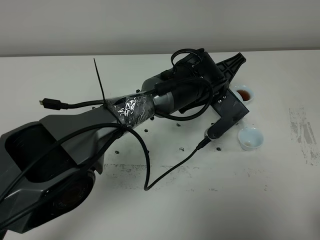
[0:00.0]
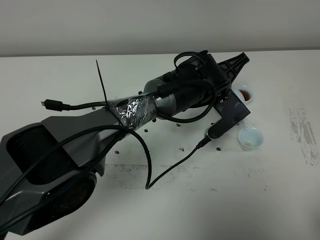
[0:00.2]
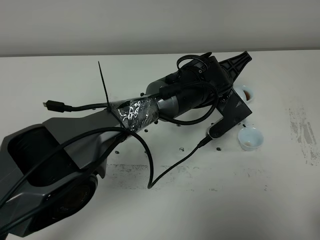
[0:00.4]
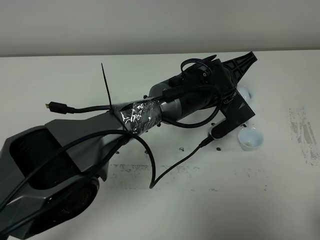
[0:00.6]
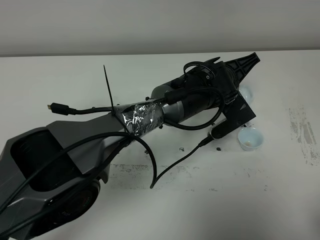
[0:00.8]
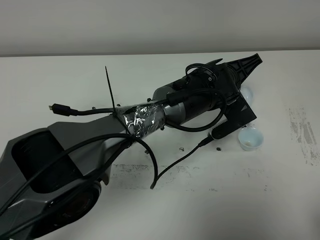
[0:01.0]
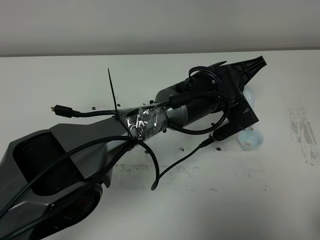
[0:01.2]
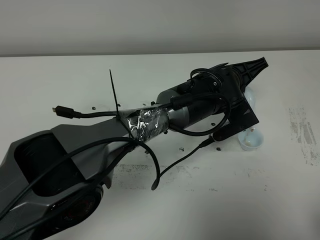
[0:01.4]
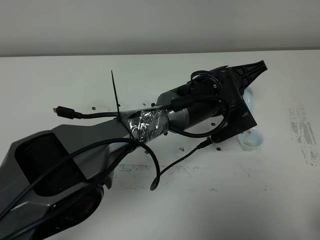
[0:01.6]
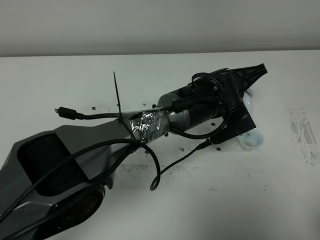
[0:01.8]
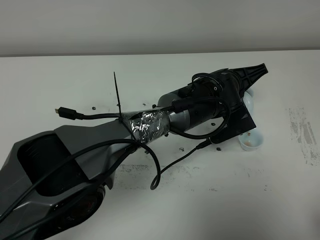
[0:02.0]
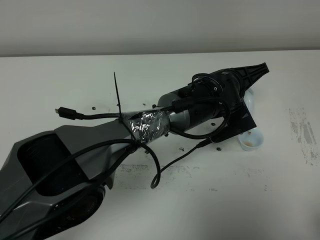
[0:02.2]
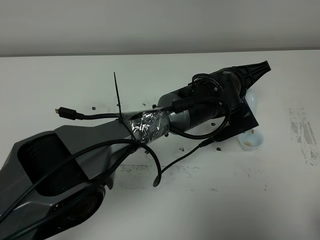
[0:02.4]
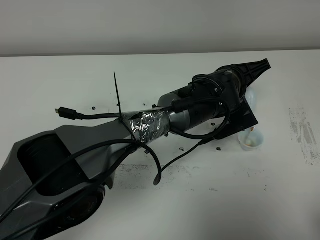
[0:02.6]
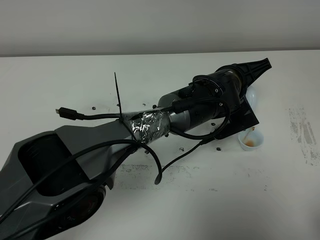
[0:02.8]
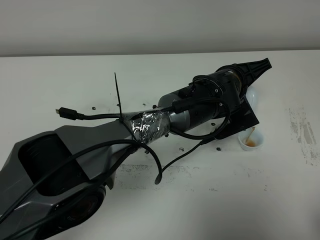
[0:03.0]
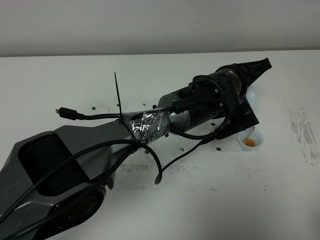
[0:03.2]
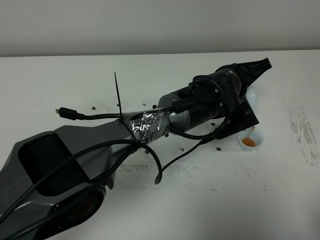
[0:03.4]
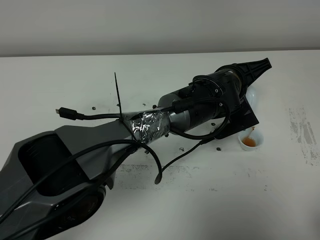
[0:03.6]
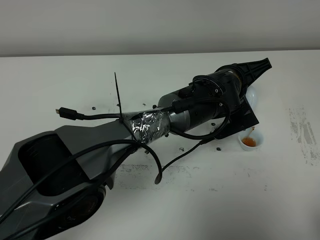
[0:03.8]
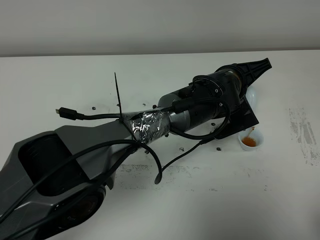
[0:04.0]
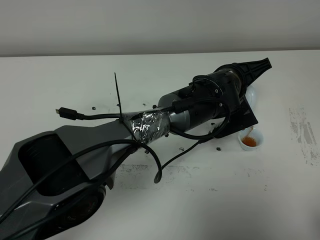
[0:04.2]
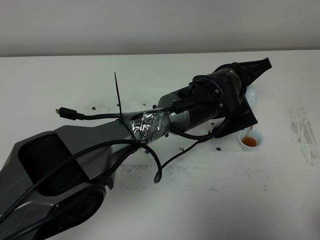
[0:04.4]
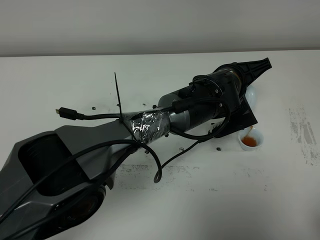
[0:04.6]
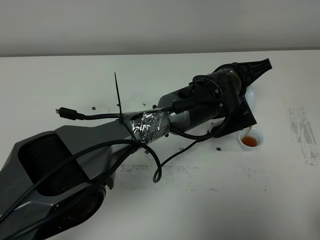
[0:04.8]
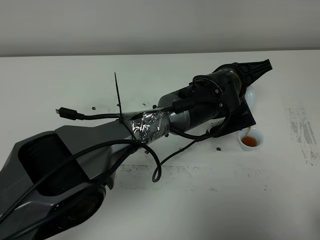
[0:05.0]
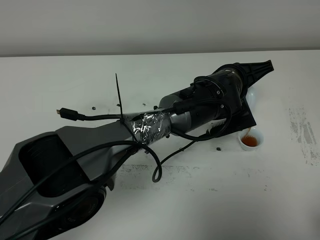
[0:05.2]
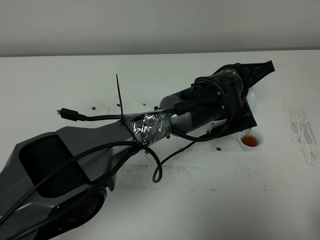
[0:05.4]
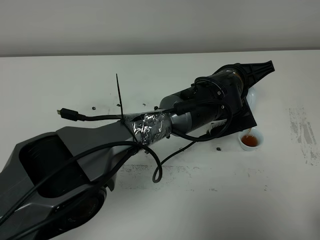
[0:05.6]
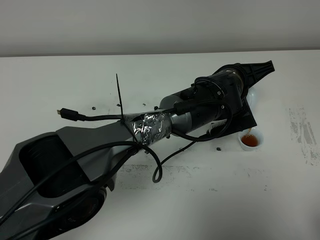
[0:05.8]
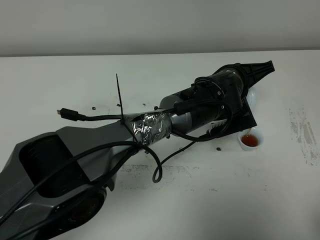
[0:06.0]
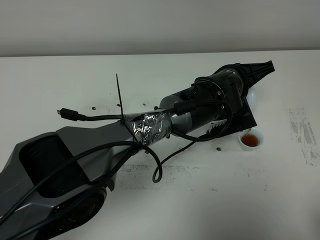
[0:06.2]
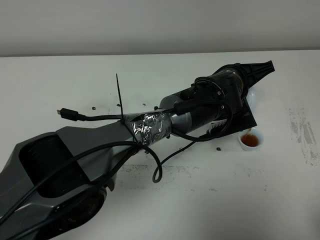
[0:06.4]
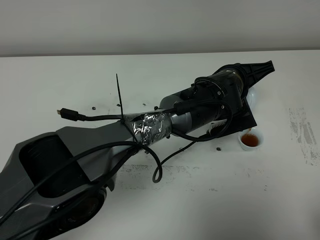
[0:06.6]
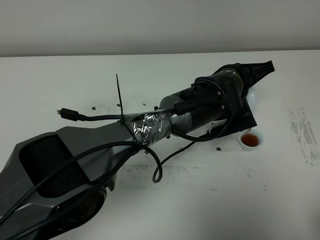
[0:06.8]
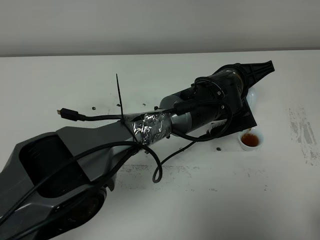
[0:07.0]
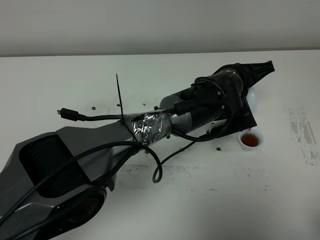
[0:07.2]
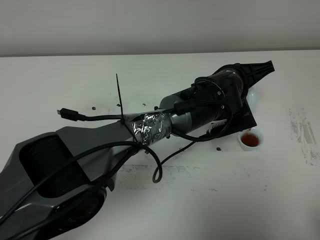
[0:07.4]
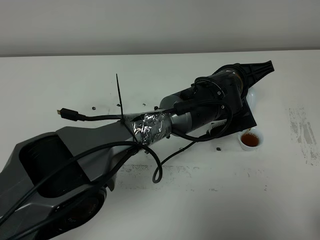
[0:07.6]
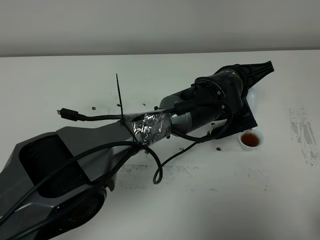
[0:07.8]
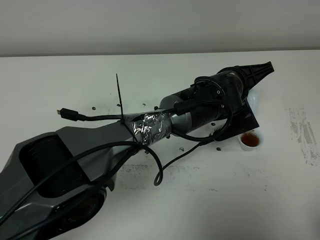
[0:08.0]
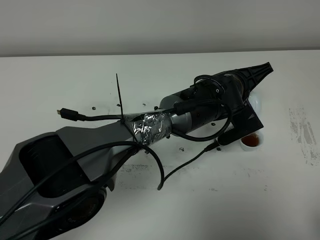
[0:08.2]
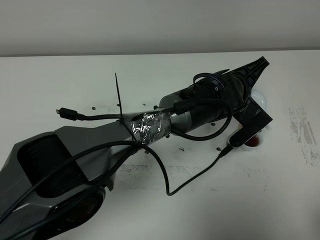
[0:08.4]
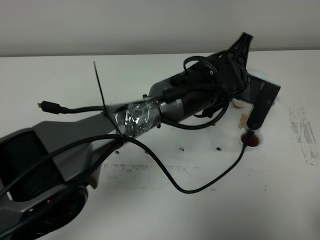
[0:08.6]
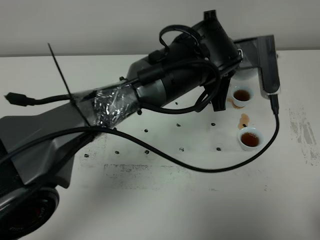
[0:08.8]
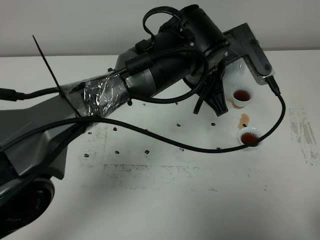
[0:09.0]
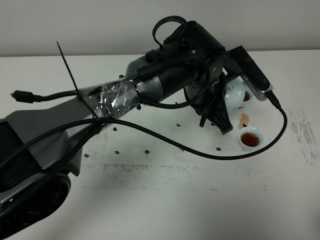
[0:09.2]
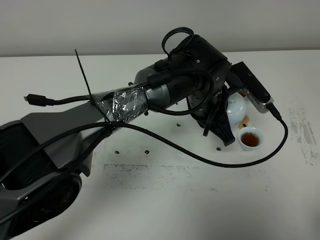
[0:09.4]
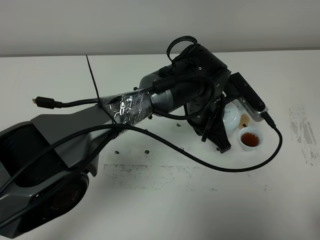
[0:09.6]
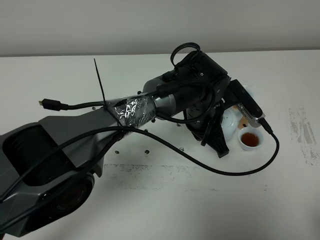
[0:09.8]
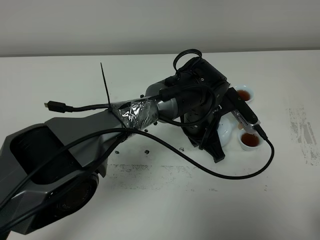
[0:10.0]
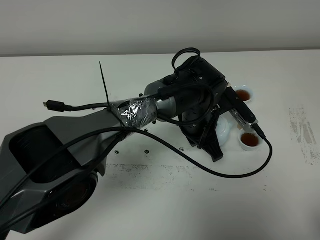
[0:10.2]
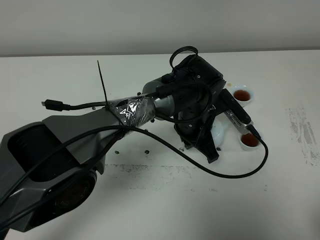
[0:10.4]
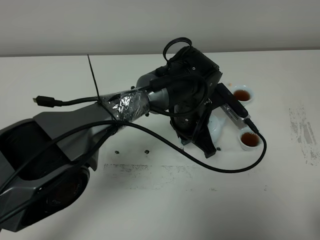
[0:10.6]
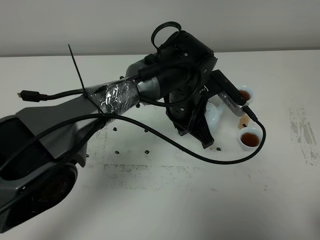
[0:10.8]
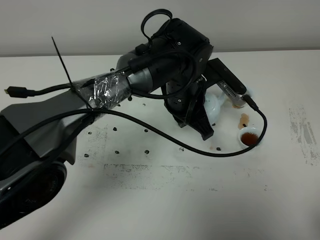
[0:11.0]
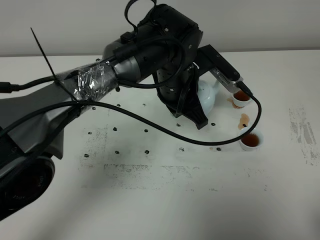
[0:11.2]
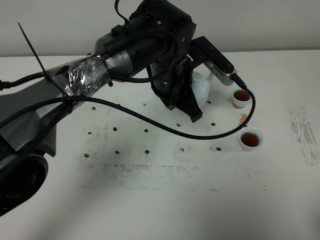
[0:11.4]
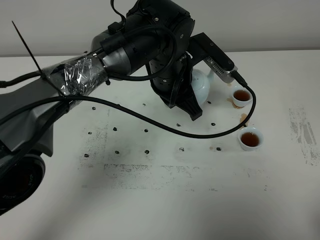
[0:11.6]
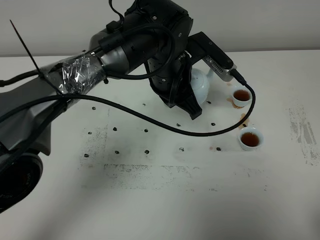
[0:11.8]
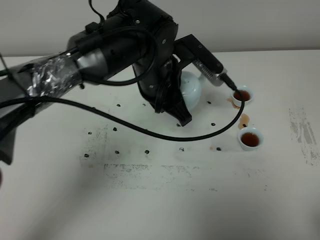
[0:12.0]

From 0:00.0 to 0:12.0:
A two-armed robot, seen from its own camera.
Task of the whole recording: grasp the blue porcelain teapot and pour the tea into the two blue porcelain teacups one by one, put the blue porcelain teapot back in its original place.
Step, from 0:00.0 to 0:08.2: Pour tea into the teacup with the left gripper.
From 0:01.6 to 0:03.0: Both grippers stay put.
From 0:03.0 to 0:04.4: The two grippers keep their place.
From 0:04.4 to 0:07.6: Both grippers stay about where they are.
From 0:07.6 to 0:09.0: The left gripper moves upward and to the left, roughly 10 cm.
From 0:09.0 to 0:10.4: The left gripper moves downward, approximately 10 cm.
From 0:10.4 to 0:12.0: The left gripper goes some 15 cm upward and to the left.

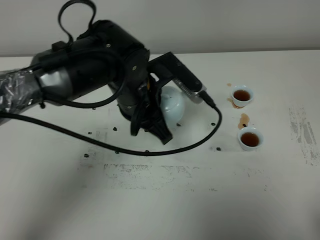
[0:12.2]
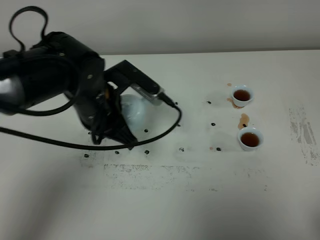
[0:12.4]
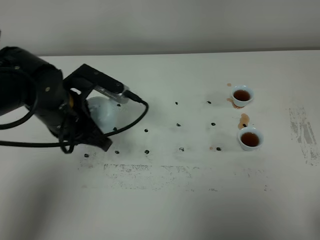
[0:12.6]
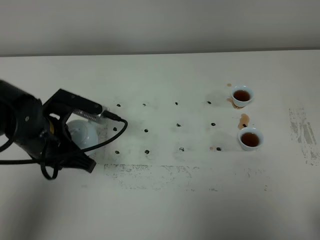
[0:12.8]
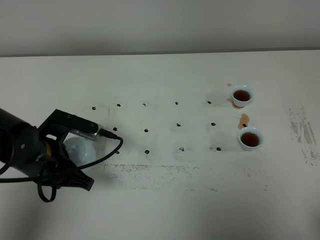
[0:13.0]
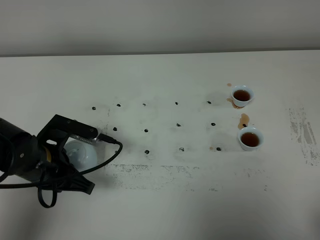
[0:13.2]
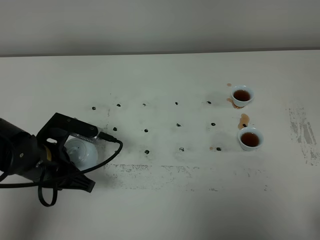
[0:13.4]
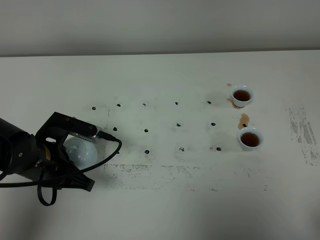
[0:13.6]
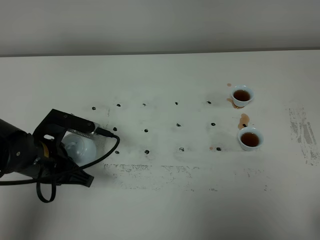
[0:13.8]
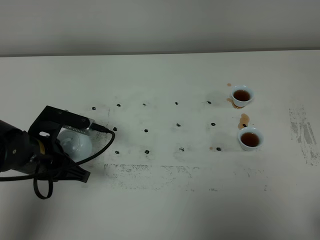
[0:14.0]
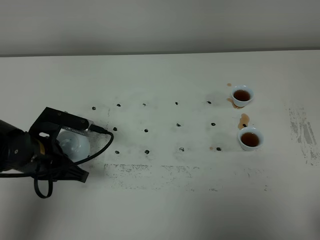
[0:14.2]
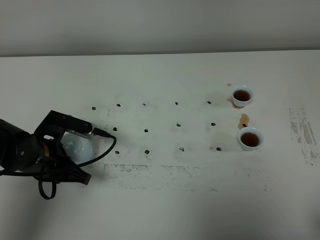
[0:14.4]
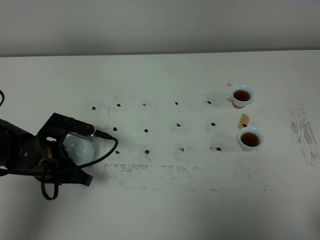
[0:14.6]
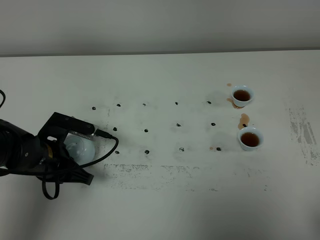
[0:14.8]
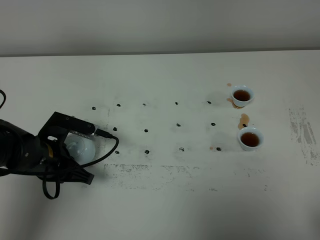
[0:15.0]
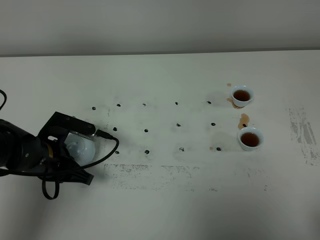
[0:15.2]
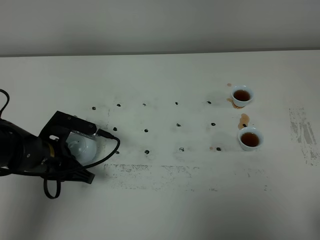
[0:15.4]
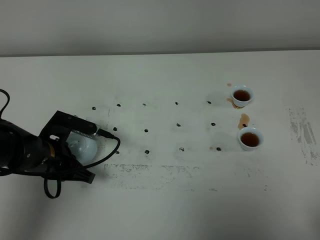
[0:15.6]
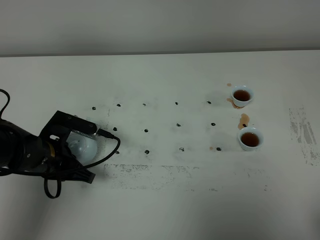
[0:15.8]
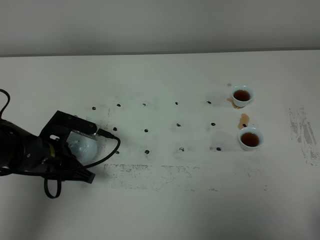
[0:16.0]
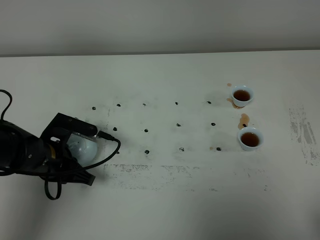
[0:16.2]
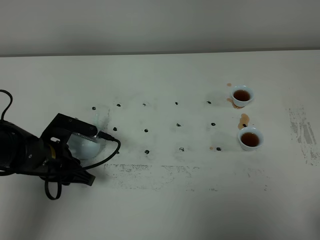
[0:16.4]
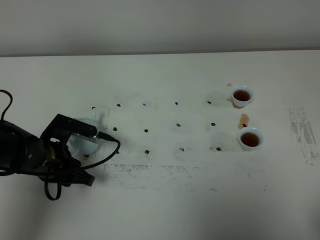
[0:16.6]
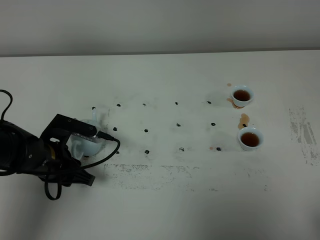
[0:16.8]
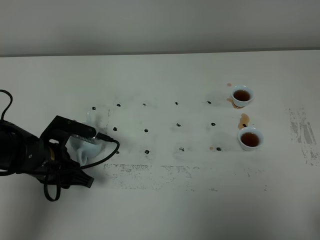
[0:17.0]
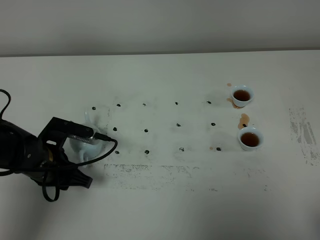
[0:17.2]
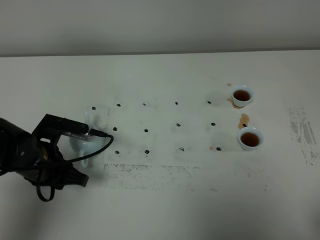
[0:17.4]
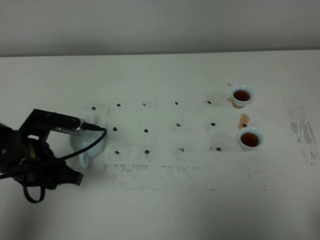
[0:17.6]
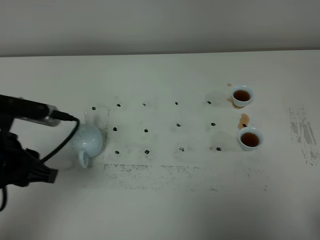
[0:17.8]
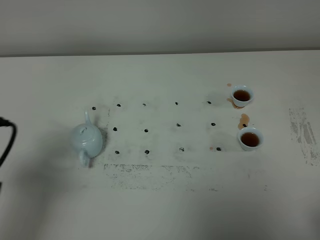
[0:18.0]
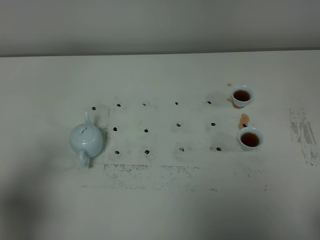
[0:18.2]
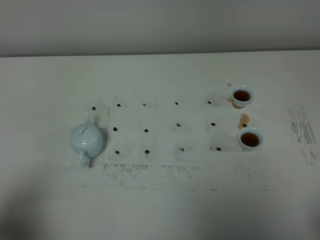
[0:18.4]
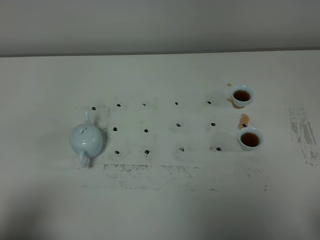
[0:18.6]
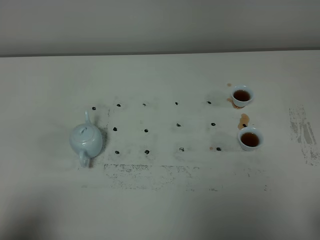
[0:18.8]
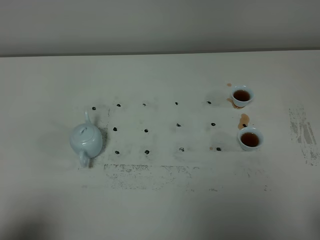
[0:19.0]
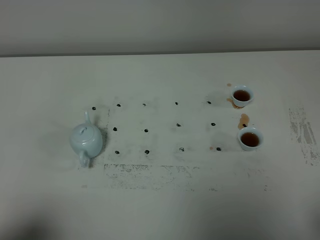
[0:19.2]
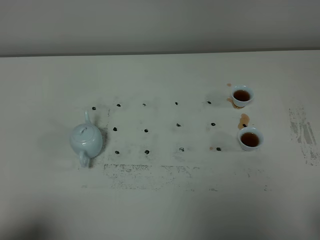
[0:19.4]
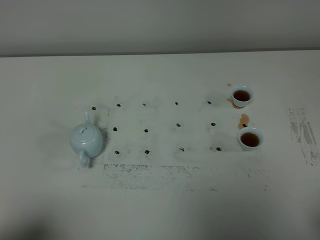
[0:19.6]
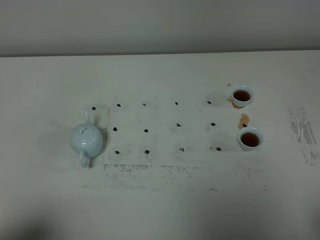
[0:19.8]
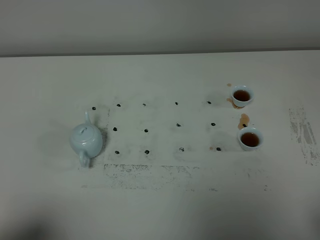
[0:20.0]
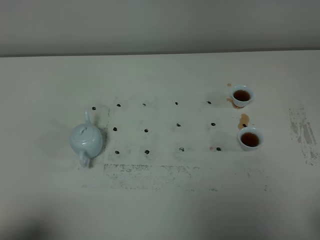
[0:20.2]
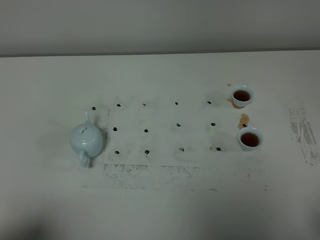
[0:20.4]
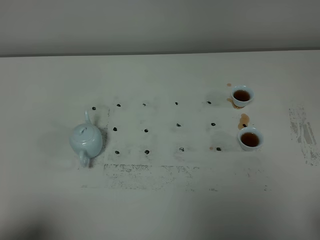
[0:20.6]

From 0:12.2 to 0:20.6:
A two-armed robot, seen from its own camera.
Task of the whole recording: grasp the blue porcelain teapot and pour the tea into the two blue porcelain teacups one by one, put the blue porcelain teapot back in its original place.
From 0:12.2 to 0:13.6: The left gripper moves to the left, downward and backward, some 20 cm.
From 0:13.6 to 0:15.0: The grippers stay close to where they were, moving slightly.
From 0:15.0 to 0:16.4: The left gripper opens its fingers.
From 0:16.4 to 0:17.8: The left gripper shifts roughly 15 cm upward and backward.
From 0:17.8 to 0:19.2: The left gripper is displaced backward by about 20 cm.
From 0:19.2 to 0:20.6: Both grippers stay put.

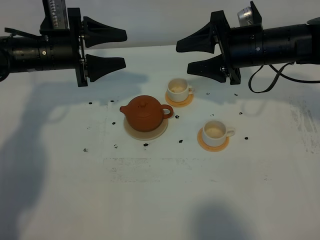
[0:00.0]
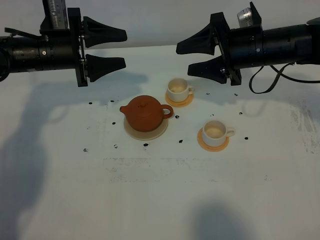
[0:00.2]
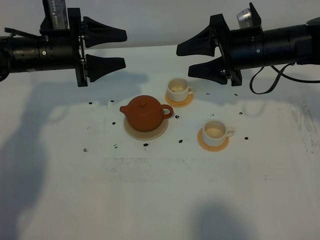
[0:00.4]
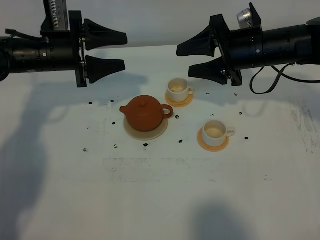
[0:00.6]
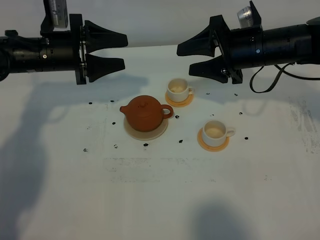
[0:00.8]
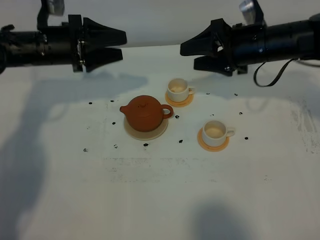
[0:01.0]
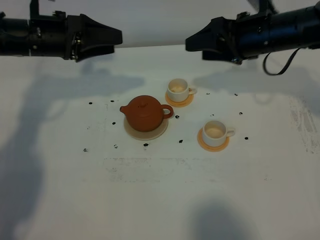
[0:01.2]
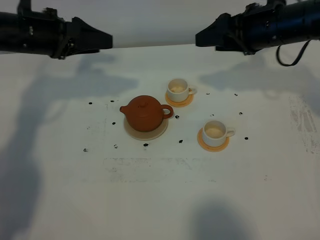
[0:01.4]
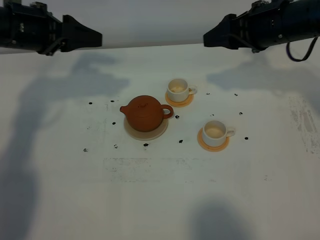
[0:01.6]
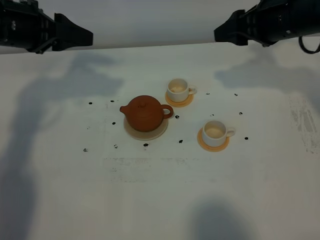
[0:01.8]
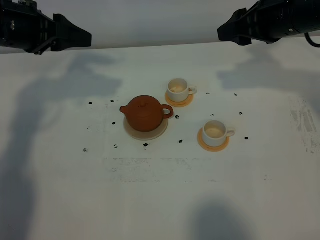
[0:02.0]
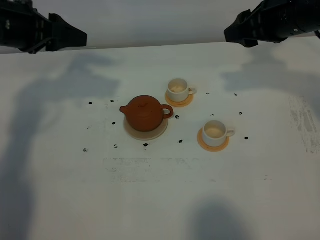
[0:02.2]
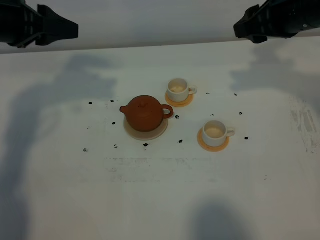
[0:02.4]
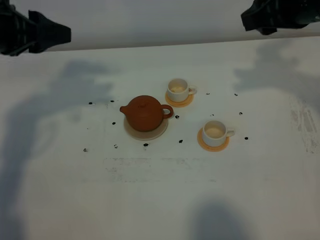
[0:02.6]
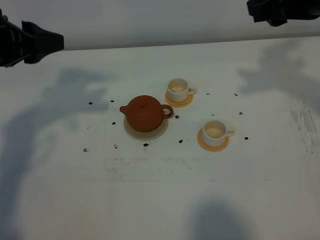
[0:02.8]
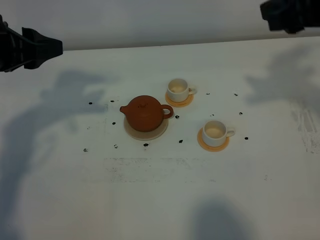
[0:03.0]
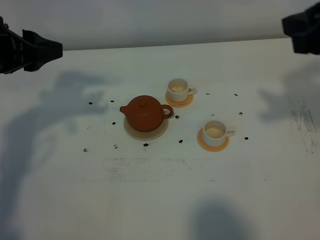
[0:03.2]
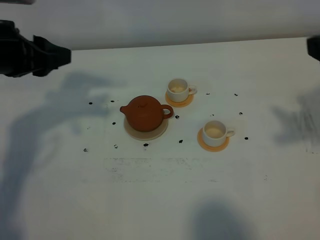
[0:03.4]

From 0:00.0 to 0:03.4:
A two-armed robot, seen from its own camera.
Task of the whole recording: grasp the brown teapot and pour the tea into the two white teacups one by one, put the brown teapot back in its original place.
From 0:00.0 to 0:01.6: The right gripper changes place by some 5 cm. The left gripper shifts roughly 10 cm upward.
From 0:01.6 to 0:03.4: The right gripper travels backward and upward by about 25 cm, while the left gripper moves backward, some 5 cm.
